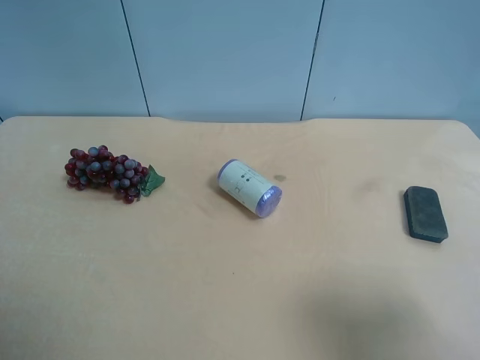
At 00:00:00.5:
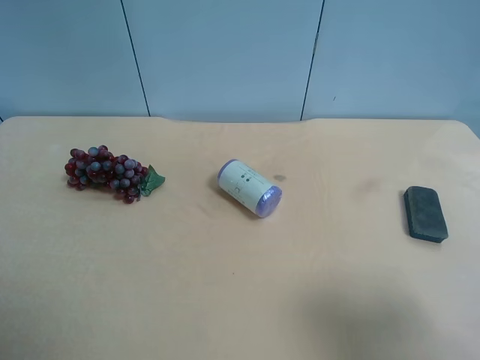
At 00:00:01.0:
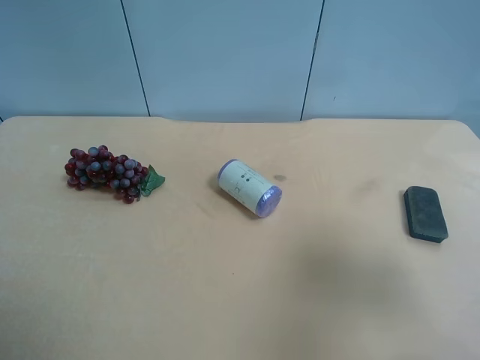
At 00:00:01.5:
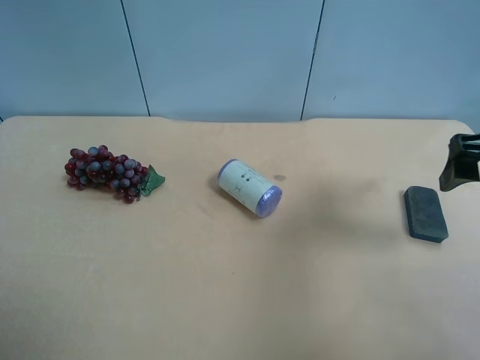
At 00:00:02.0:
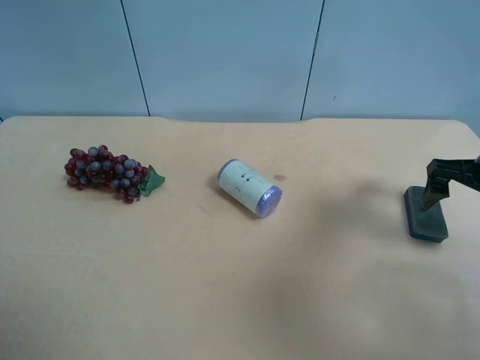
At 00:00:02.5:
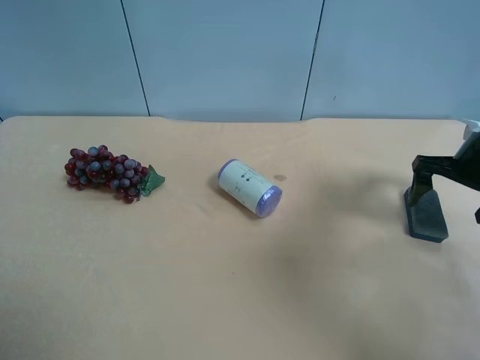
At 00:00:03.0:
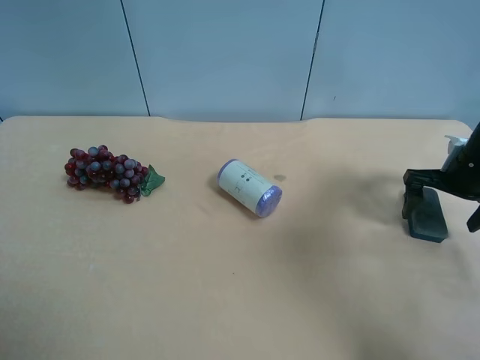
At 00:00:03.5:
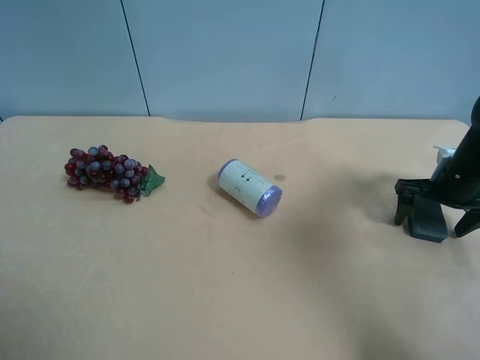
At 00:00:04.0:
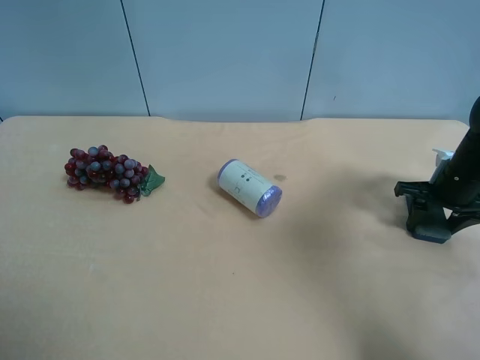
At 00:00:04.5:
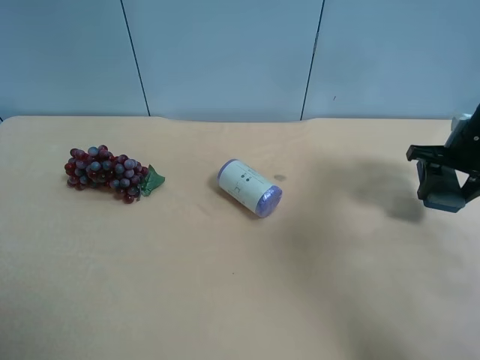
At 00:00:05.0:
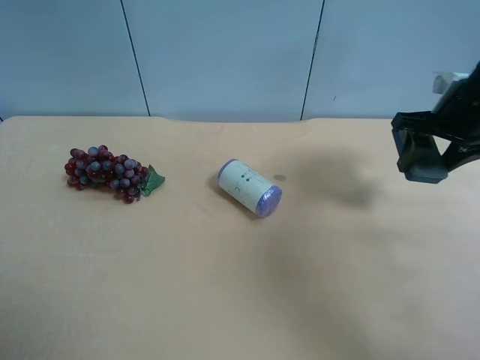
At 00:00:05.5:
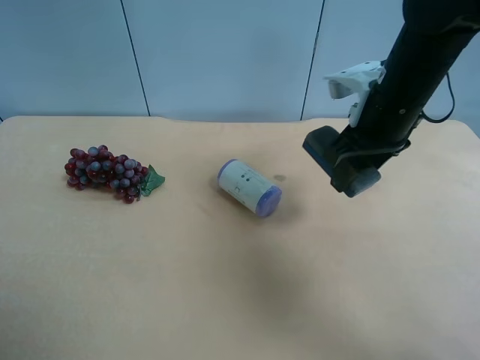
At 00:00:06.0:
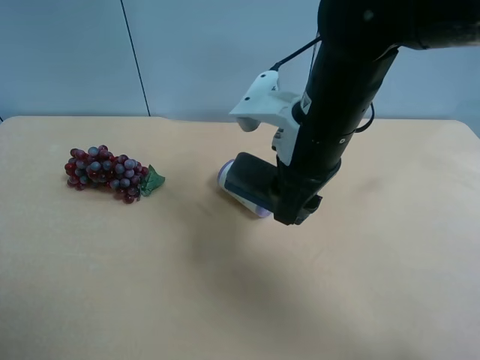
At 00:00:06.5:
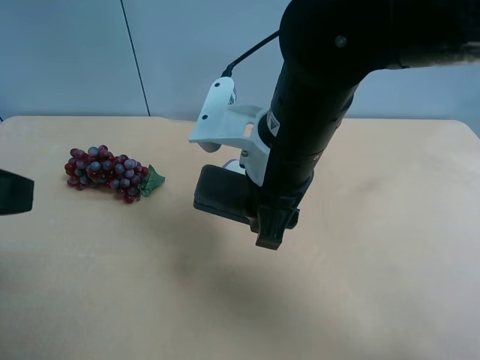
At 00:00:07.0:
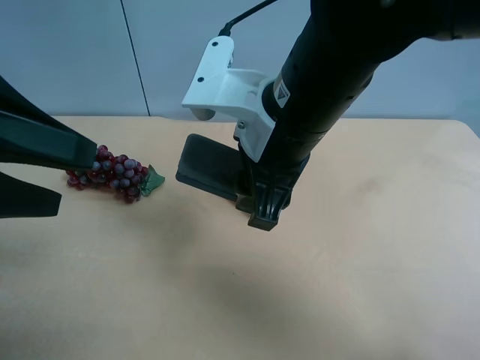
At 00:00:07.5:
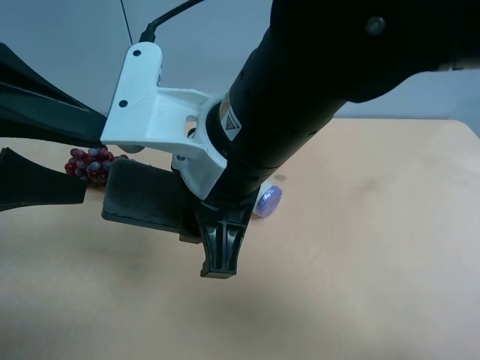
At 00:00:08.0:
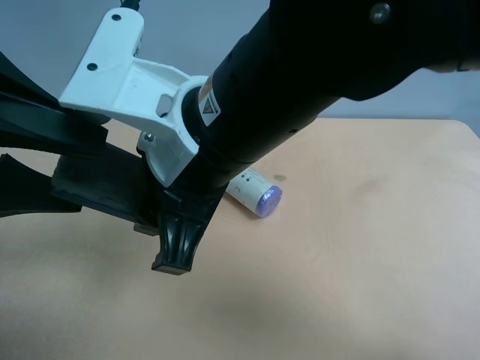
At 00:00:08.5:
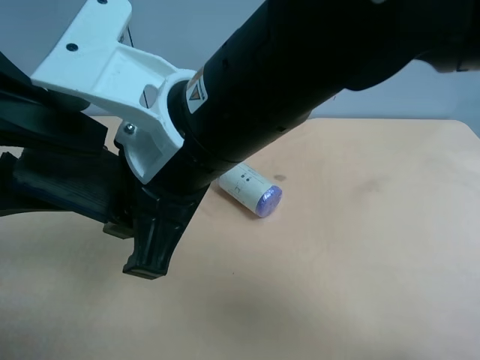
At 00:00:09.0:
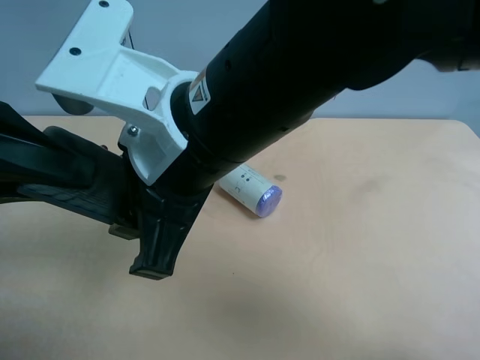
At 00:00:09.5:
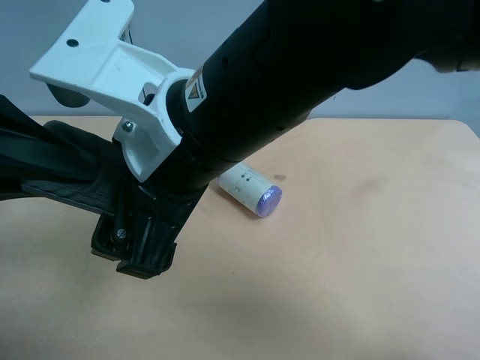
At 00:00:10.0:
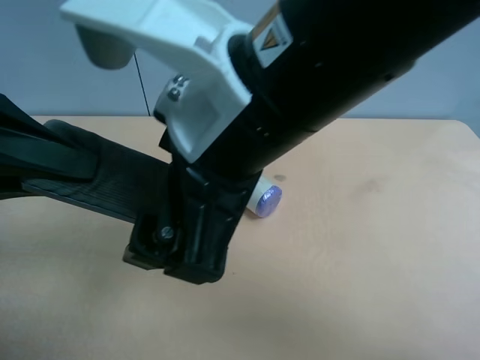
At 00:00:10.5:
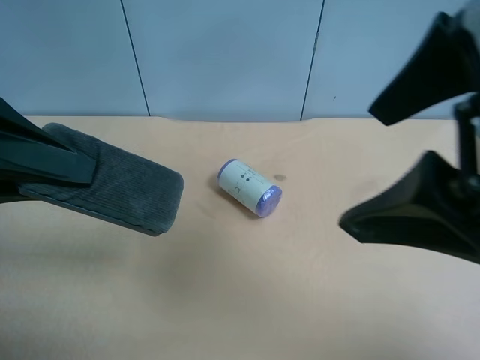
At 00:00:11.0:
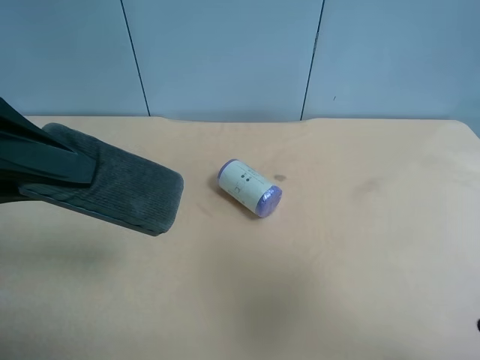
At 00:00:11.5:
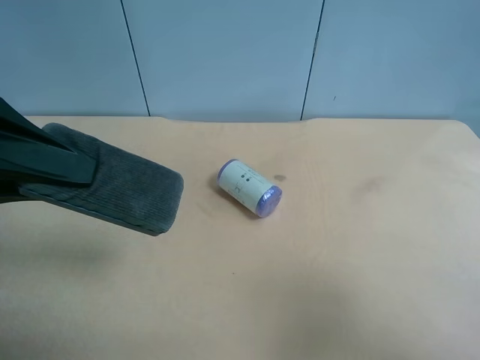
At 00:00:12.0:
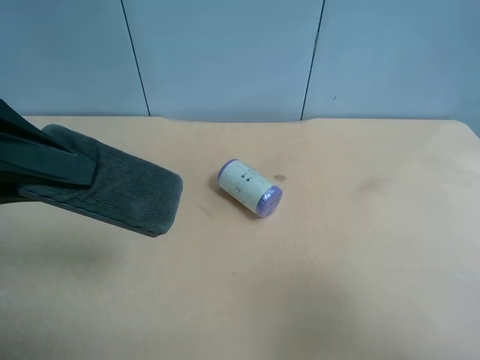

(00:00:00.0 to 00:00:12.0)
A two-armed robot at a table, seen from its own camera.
Task of the whole recording: use the right gripper to pick up the item and transfer it from the right gripper to the left gripper.
00:00:00.0 - 00:00:02.0: The right gripper goes some 25 cm forward.
00:00:02.0 - 00:00:04.0: The right gripper is displaced downward and forward by some 10 cm, and closes up.
00:00:04.0 - 00:00:06.0: The right gripper heads to the left and upward, covering approximately 30 cm.
00:00:06.0 - 00:00:08.0: The left gripper is displaced forward and to the right by about 15 cm; the right gripper is displaced to the left and backward by about 10 cm.
00:00:08.0 - 00:00:10.0: The left gripper closes; the right gripper changes place by approximately 5 cm, and opens its fingers.
00:00:10.0 - 00:00:12.0: The right gripper heads to the right and backward, covering about 30 cm.

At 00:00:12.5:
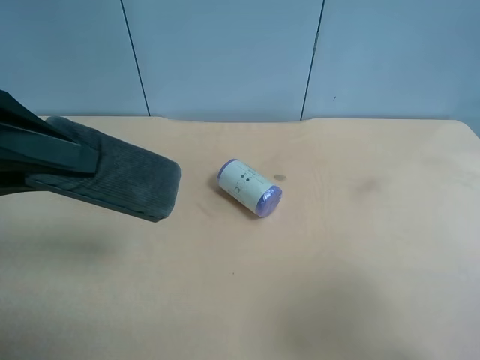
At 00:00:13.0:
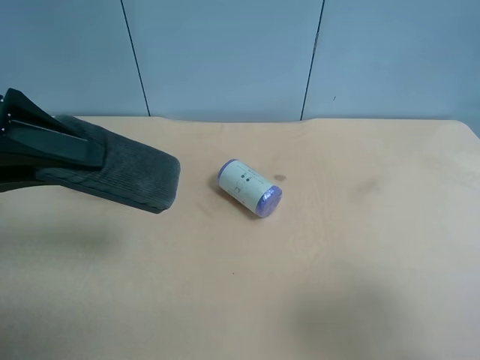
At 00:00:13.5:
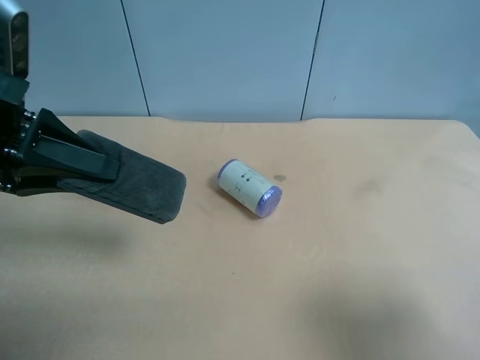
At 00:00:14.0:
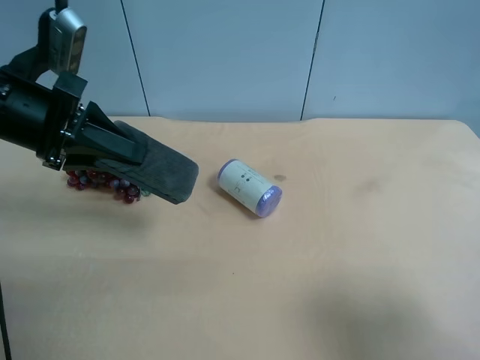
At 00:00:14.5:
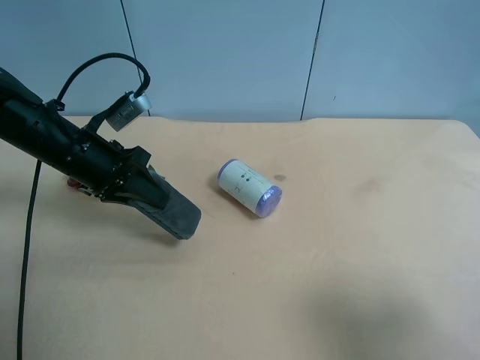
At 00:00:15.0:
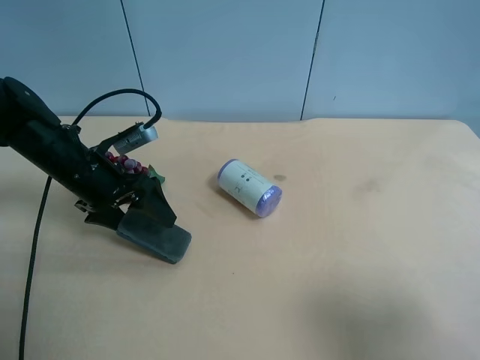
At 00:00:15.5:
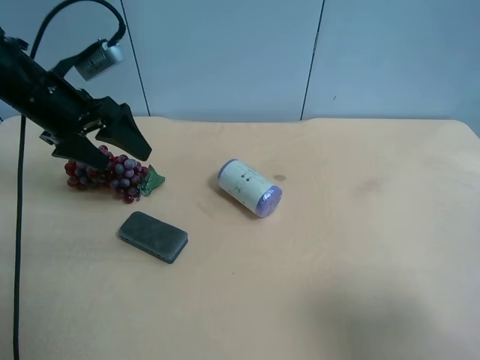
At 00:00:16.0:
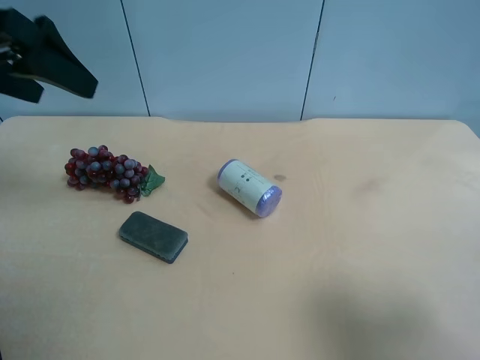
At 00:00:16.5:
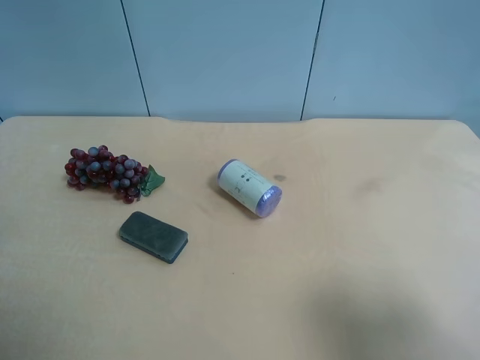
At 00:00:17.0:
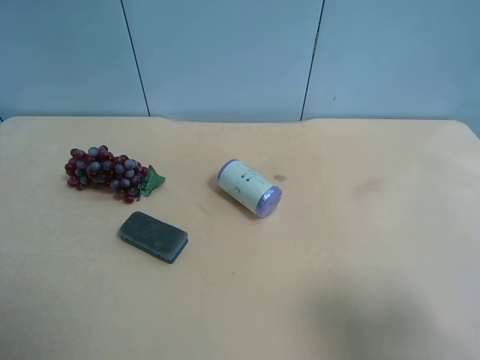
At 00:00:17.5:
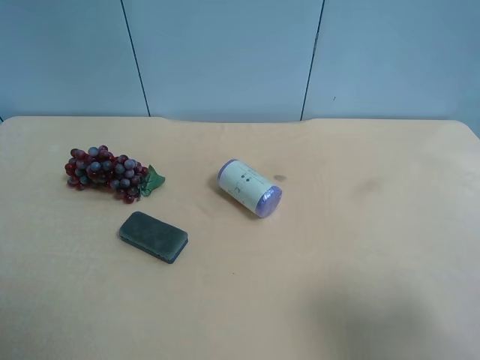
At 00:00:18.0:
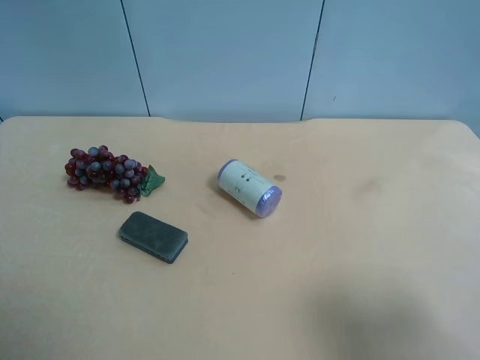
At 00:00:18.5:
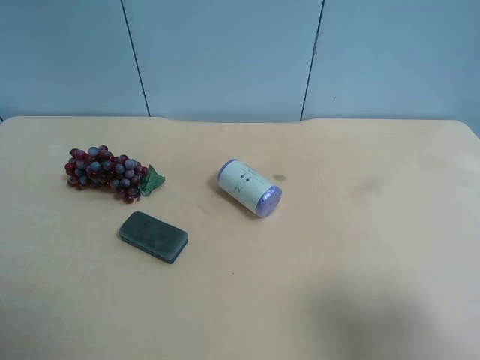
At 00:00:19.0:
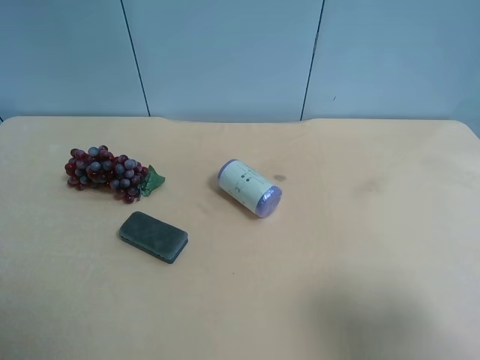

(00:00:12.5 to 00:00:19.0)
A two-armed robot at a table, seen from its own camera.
Task of the whole recording: use the right gripper to pick up the item and transfer it from the right gripper to the left gripper.
00:00:12.5 - 00:00:14.5: The left gripper travels downward and forward by about 20 cm.
00:00:14.5 - 00:00:17.0: The left gripper is displaced backward and upward by some 30 cm, and opens its fingers.
